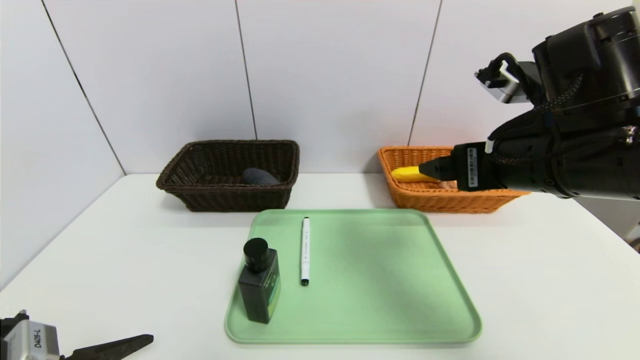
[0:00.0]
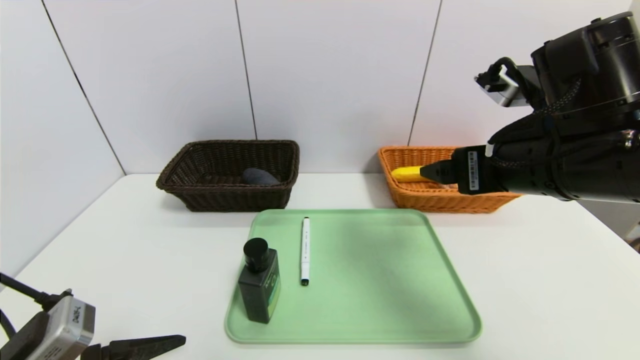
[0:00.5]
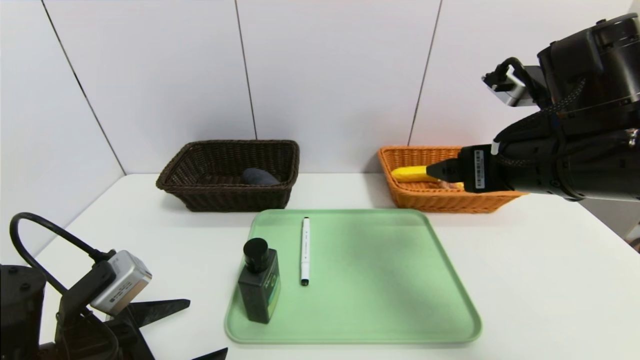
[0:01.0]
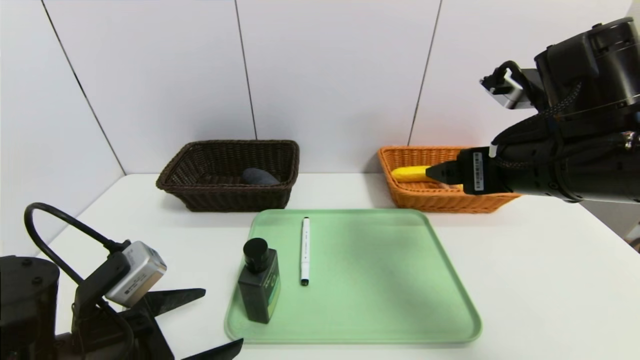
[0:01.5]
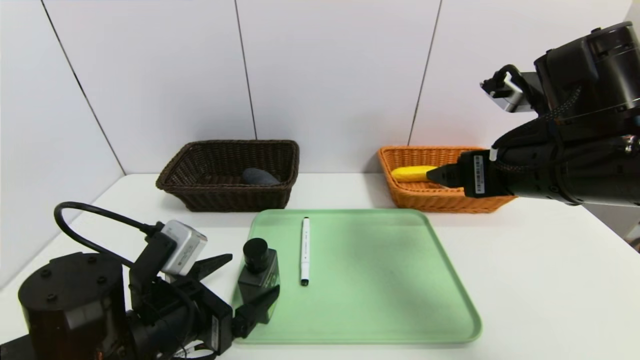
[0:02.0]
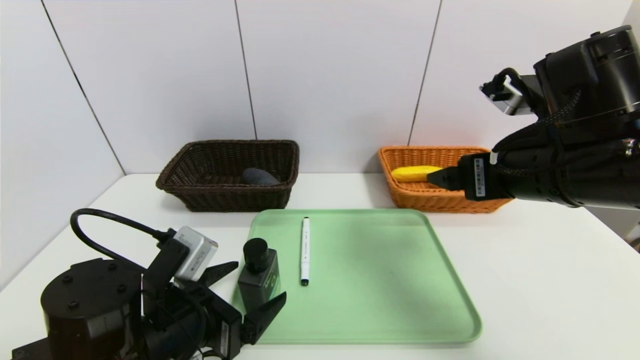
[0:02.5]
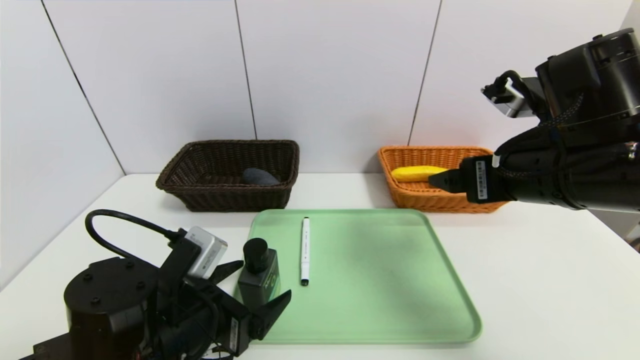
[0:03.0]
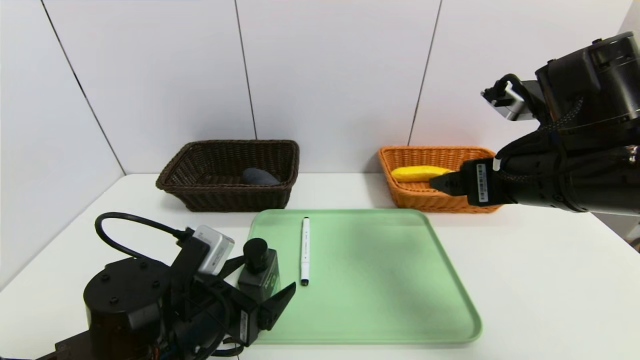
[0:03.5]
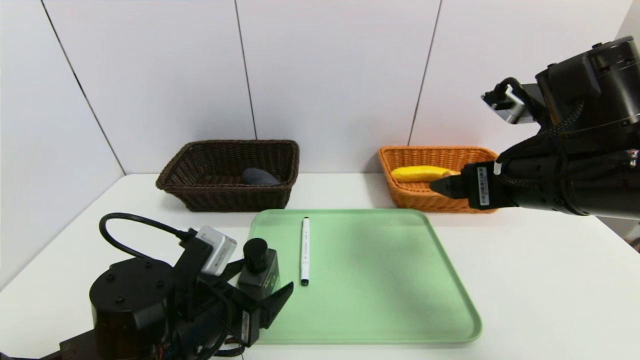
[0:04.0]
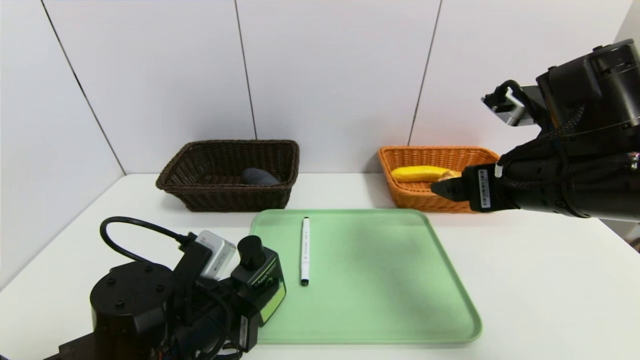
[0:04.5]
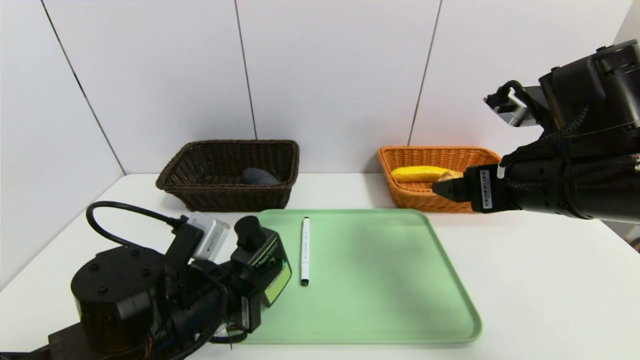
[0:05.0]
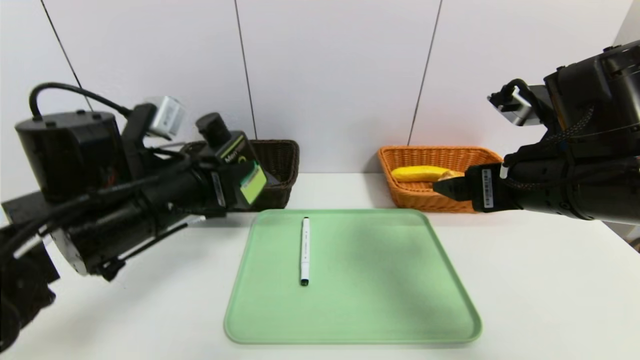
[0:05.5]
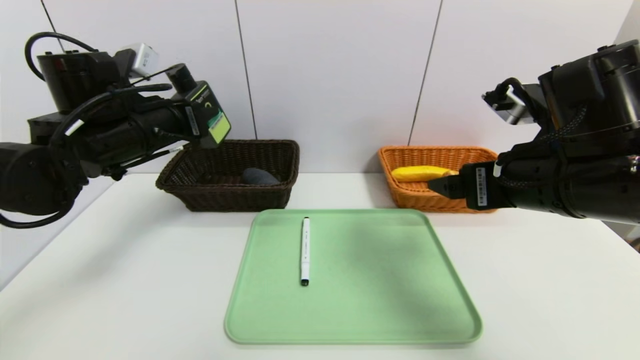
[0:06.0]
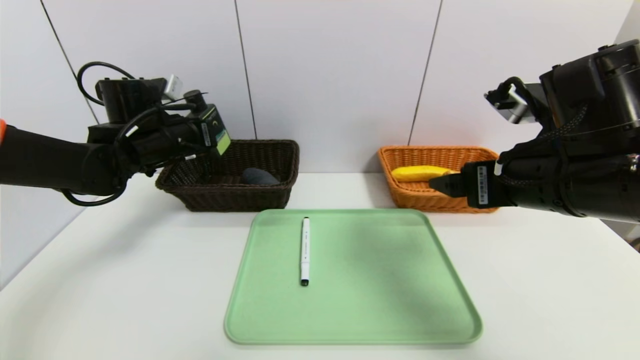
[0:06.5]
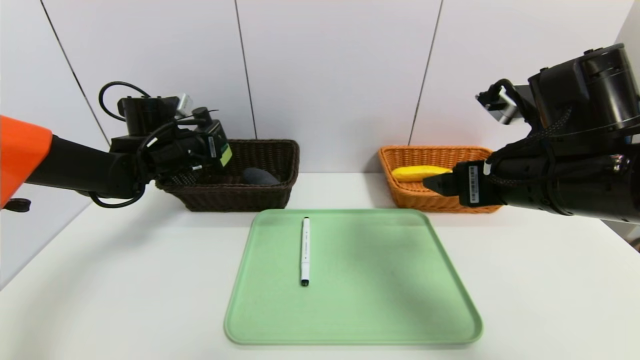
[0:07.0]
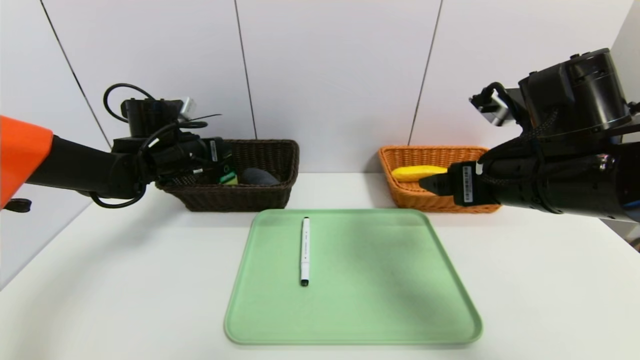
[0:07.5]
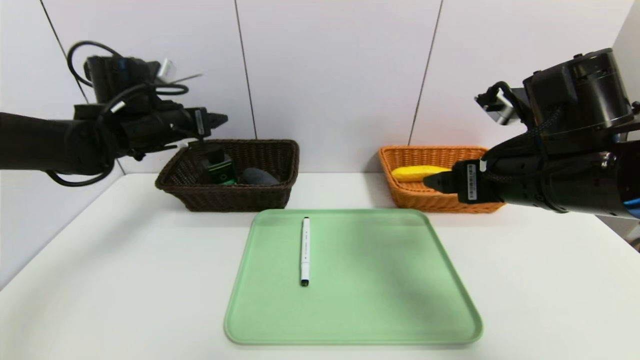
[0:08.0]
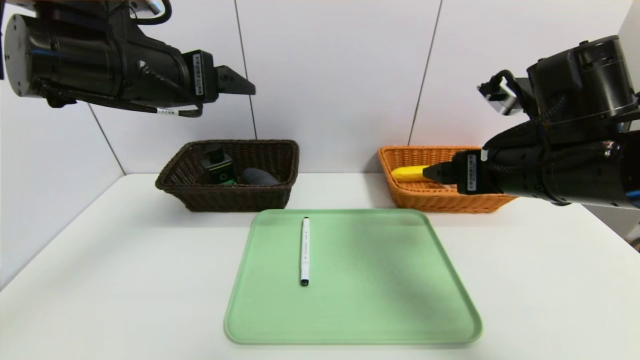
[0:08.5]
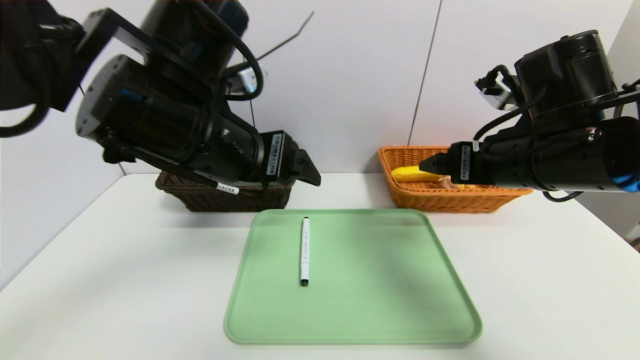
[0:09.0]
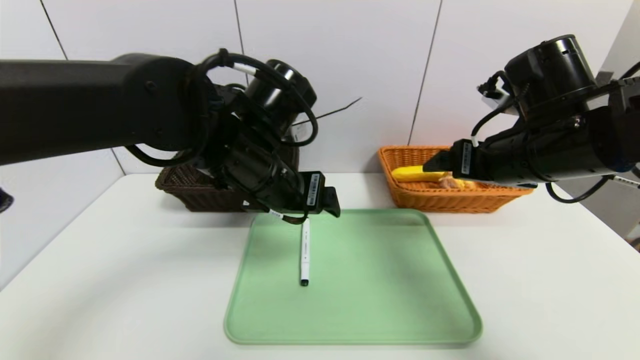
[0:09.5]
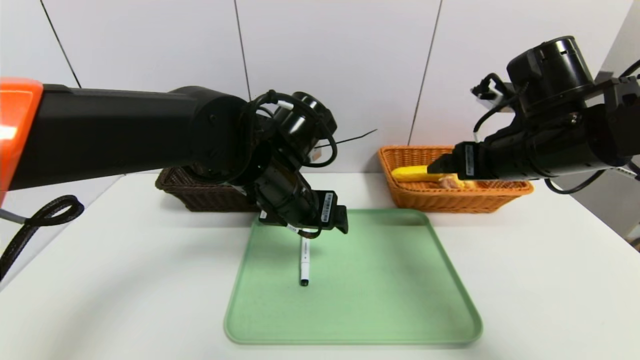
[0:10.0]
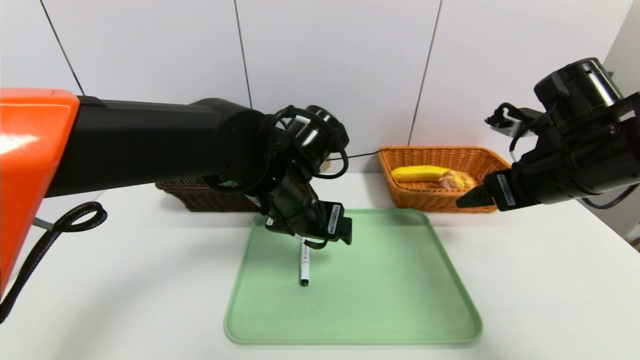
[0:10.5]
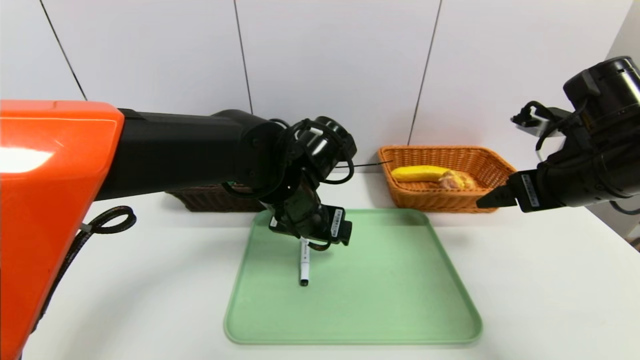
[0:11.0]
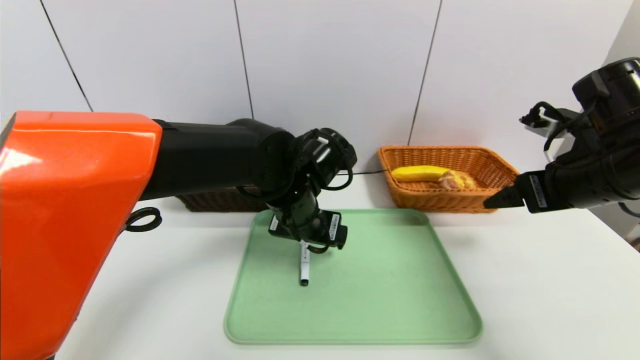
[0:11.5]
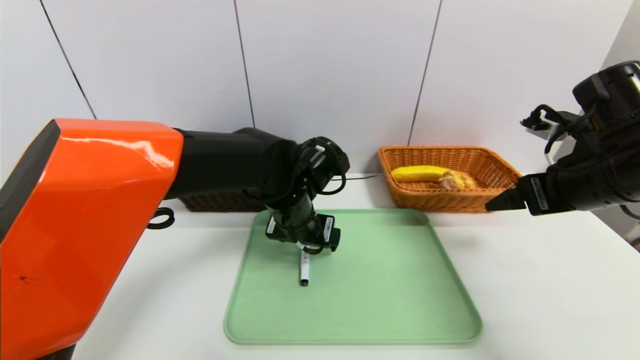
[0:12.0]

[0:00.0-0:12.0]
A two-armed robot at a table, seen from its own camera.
Task of the whole recording: place the food in the right basket with the right gripper, and place the non food items in the left basket with the left gripper.
Step, 0:00.0 to 0:08.0: Grasp the hard cleanser and put it in the left basket.
0:00.0 to 0:02.0: The left gripper travels forward and to the right by about 15 cm.
0:02.0 to 0:04.0: There are only small adjustments of the grippers.
0:04.0 to 0:06.0: The left gripper is displaced forward, upward and to the left by about 25 cm, and closes.
0:06.0 to 0:08.0: The left gripper moves forward, roughly 5 cm, and opens.
0:08.0 to 0:10.0: The left gripper travels to the right and backward by approximately 20 cm, while the right gripper changes place by roughly 5 cm.
0:10.0 to 0:12.0: The left gripper heads downward, covering some 5 cm, while the right gripper is displaced to the right by roughly 5 cm.

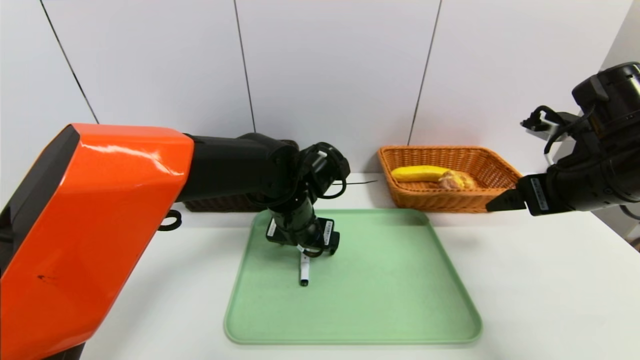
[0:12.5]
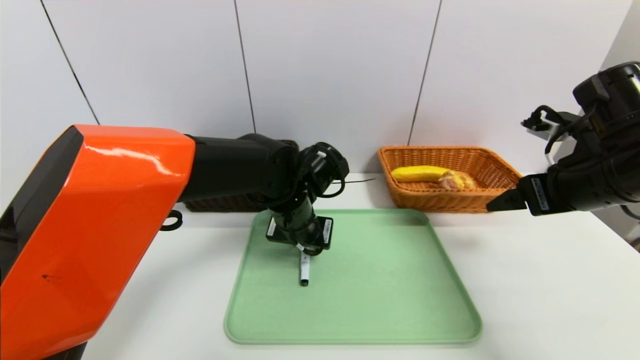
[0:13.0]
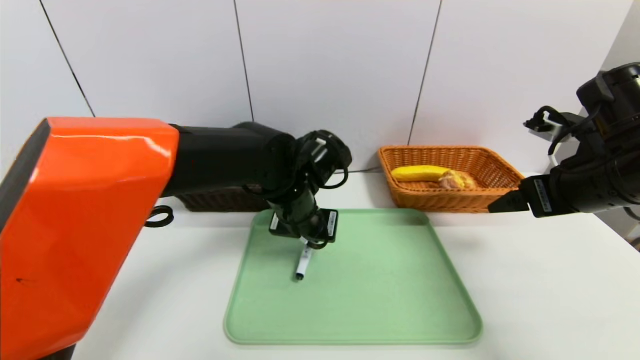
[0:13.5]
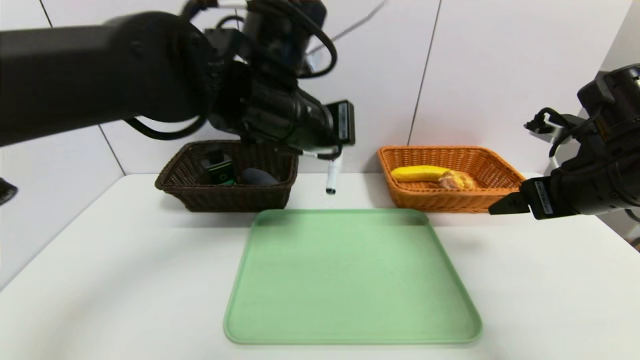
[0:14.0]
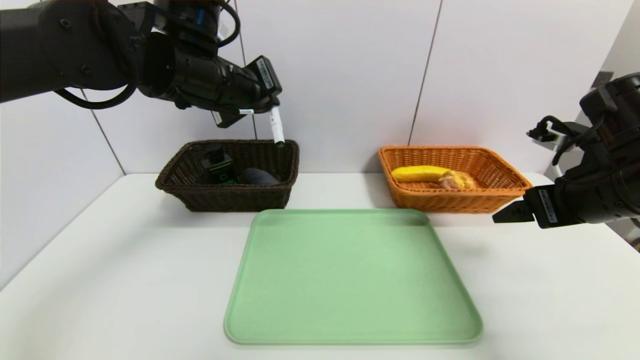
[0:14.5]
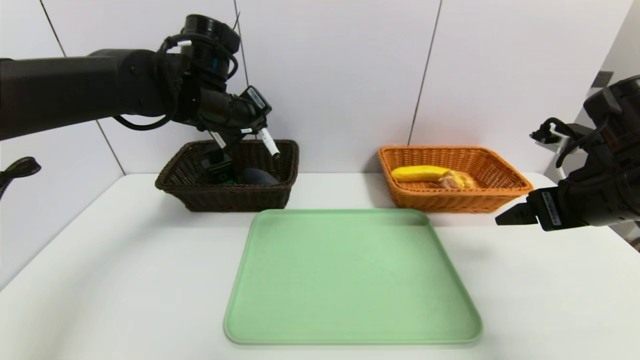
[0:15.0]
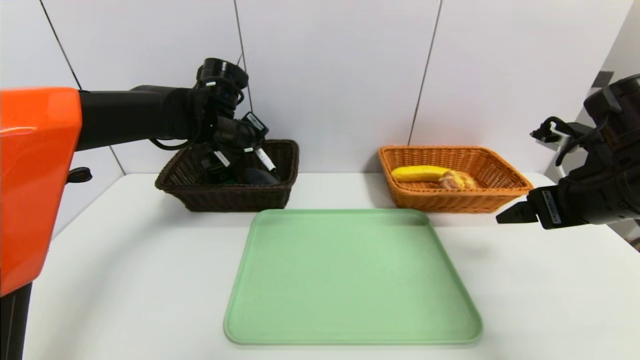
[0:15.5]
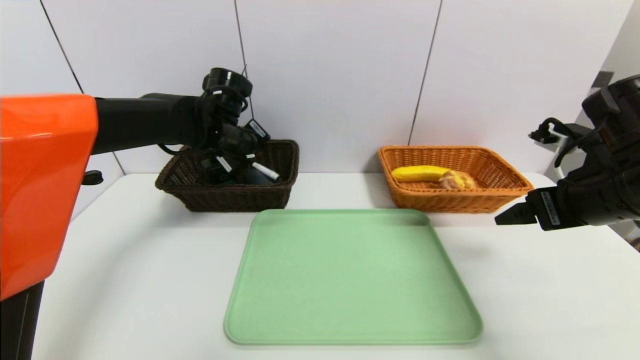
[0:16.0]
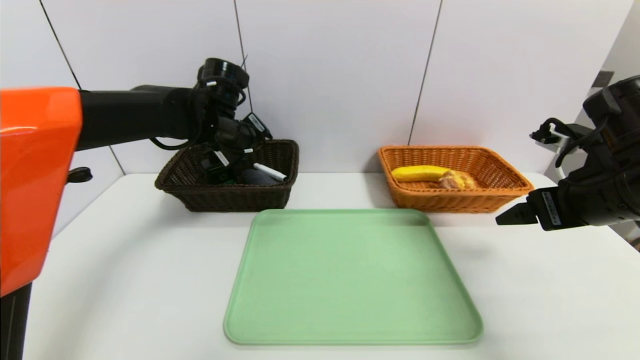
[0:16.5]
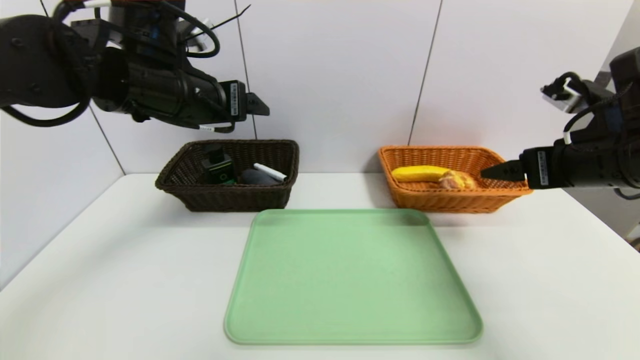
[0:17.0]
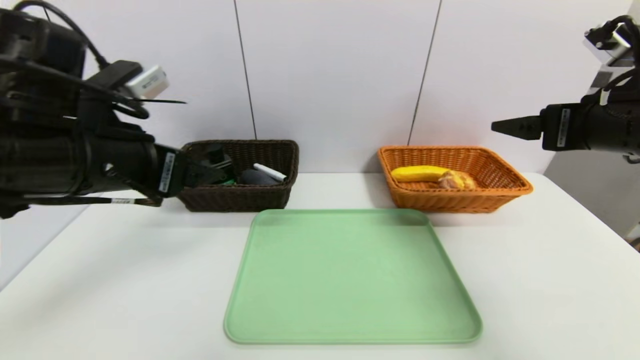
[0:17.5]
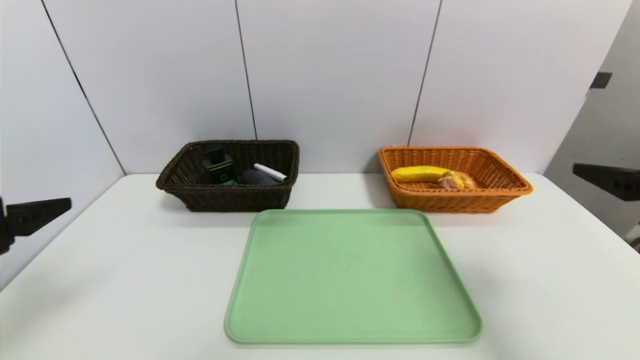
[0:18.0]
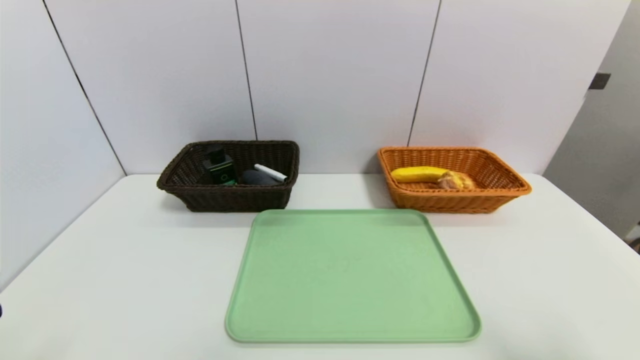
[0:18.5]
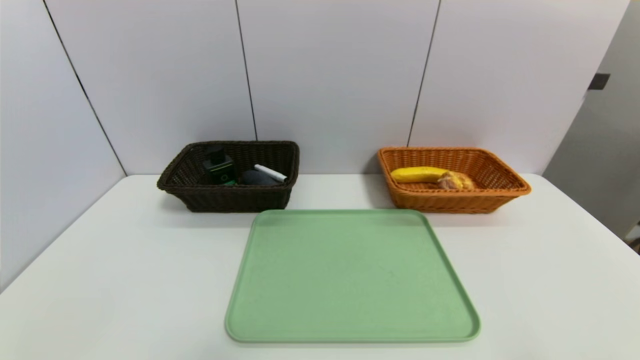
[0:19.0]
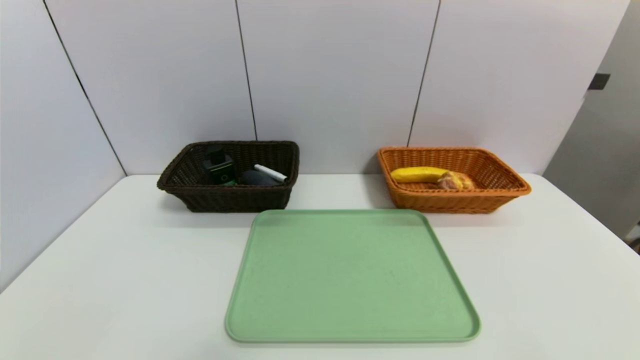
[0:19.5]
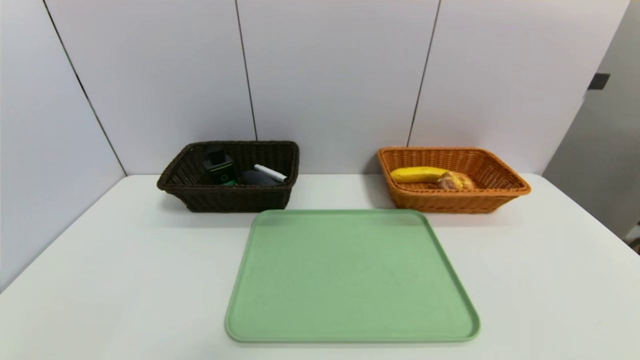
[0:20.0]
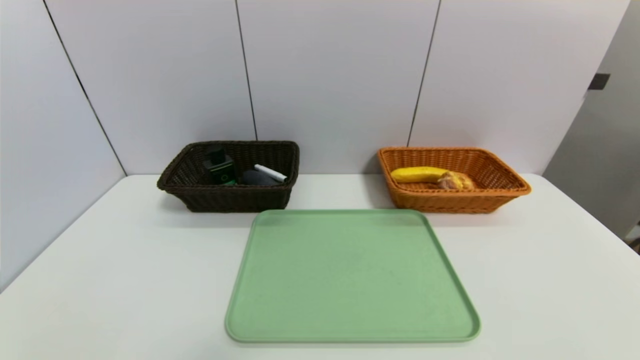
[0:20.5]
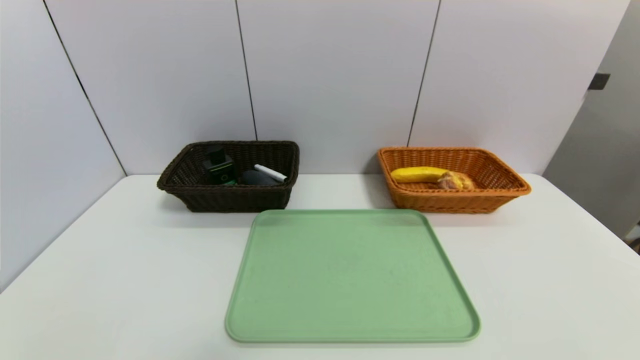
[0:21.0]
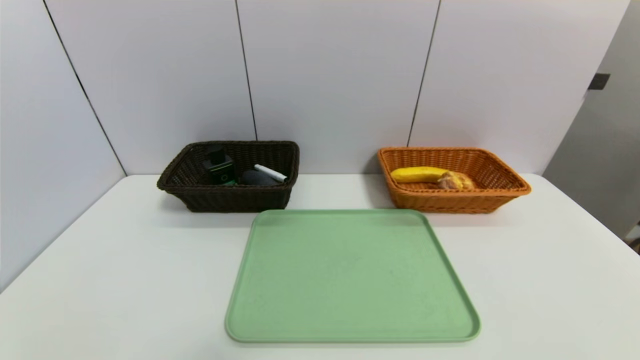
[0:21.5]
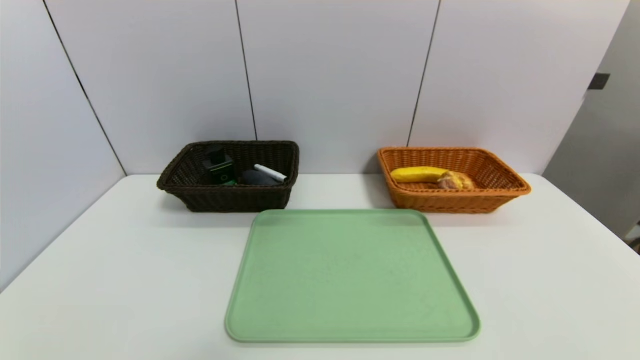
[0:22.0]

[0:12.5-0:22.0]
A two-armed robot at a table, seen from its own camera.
Task of the whole recording: place the food in the right basket with the right gripper, and place the non food items in the left basket with the left gripper.
Step, 0:12.5 to 0:16.5: Grasp the black marker and put it in the left basket.
0:12.5 to 0:14.5: The left gripper shifts some 20 cm upward and to the left, and closes.
0:14.5 to 0:16.5: The left gripper goes some 10 cm forward and downward, and opens.
0:16.5 to 0:18.0: The left gripper shifts about 35 cm backward and to the left; the right gripper travels backward by some 10 cm.
0:18.0 to 0:20.0: The grippers both shift downward and backward by about 25 cm.
